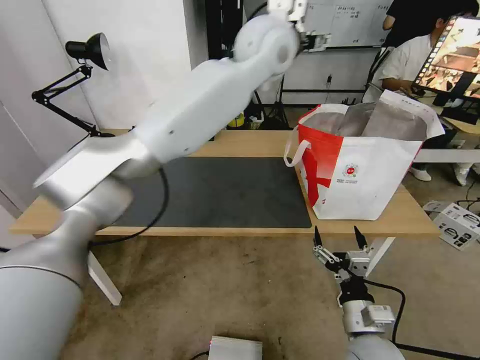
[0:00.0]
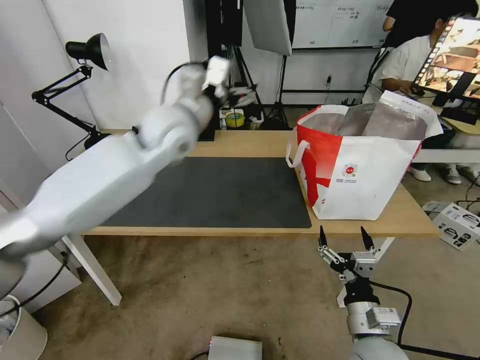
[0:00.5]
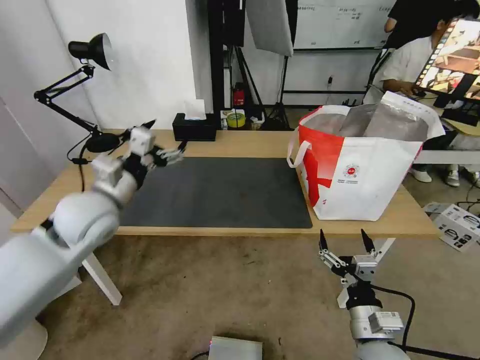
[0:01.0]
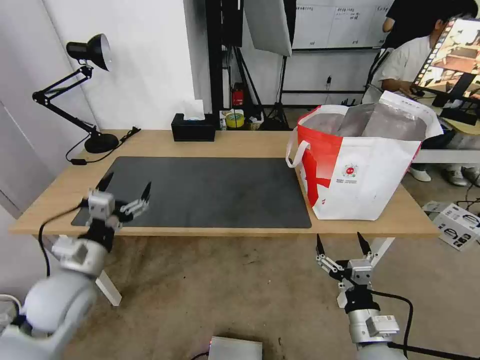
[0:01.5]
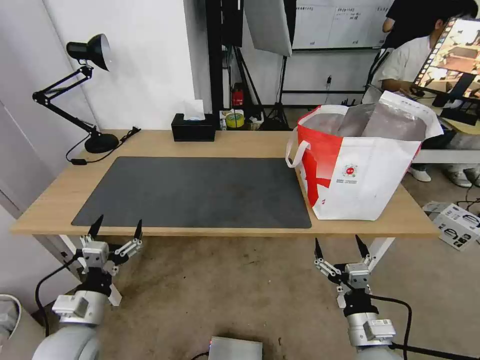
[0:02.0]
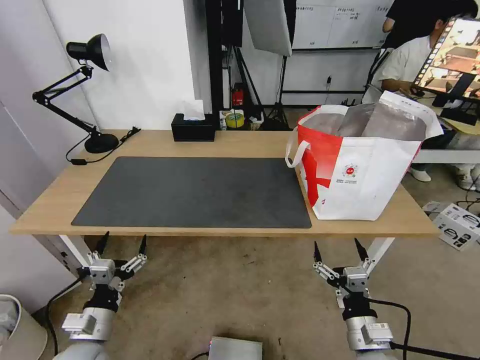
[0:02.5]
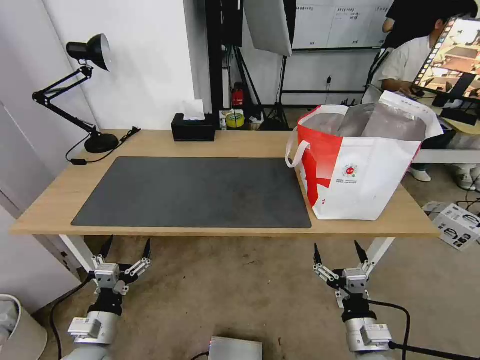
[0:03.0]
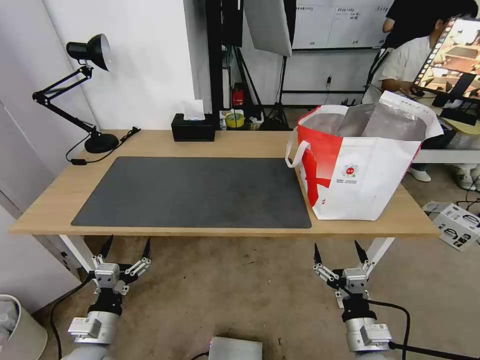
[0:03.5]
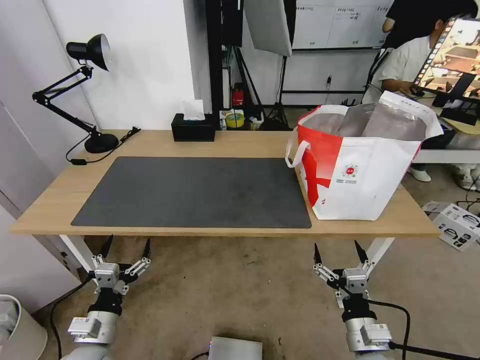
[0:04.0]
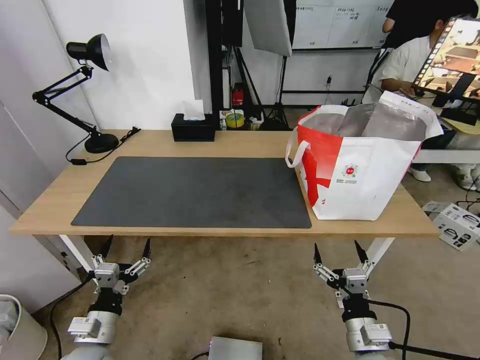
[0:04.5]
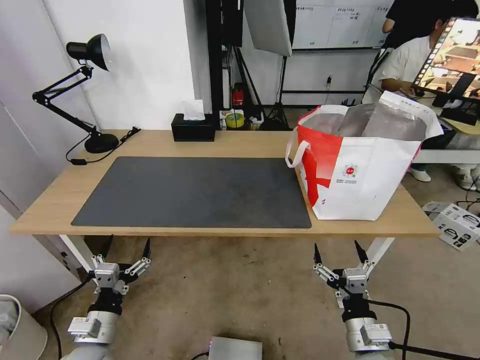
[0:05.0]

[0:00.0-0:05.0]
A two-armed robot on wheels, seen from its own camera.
Task of the whole recording: Pick up the trash from the table and place it into the takeout bag.
0:00.0 to 0:02.5: The left gripper shifts roughly 70 cm downward, backward and to the left.
0:02.5 to 0:05.0: The two grippers keep their place.
